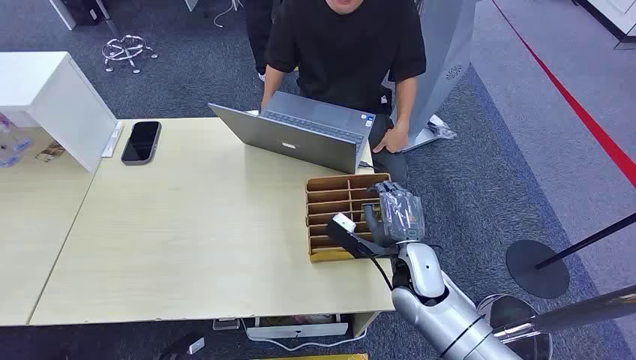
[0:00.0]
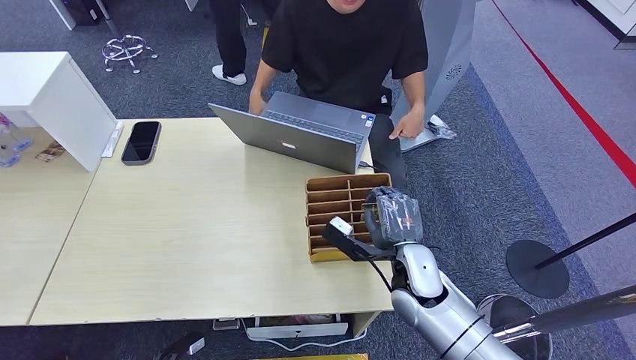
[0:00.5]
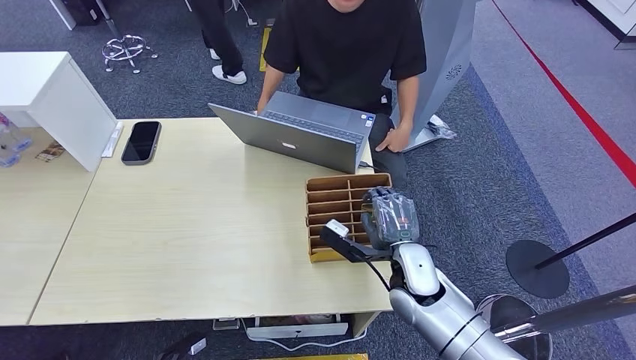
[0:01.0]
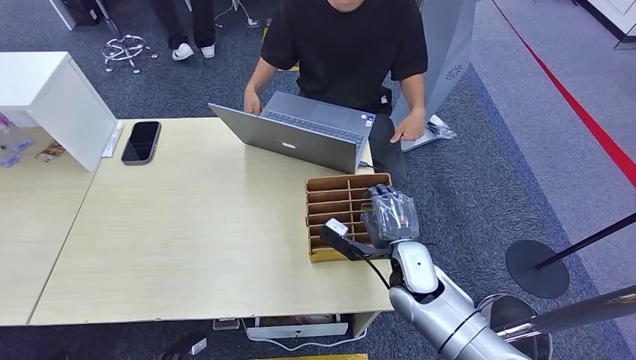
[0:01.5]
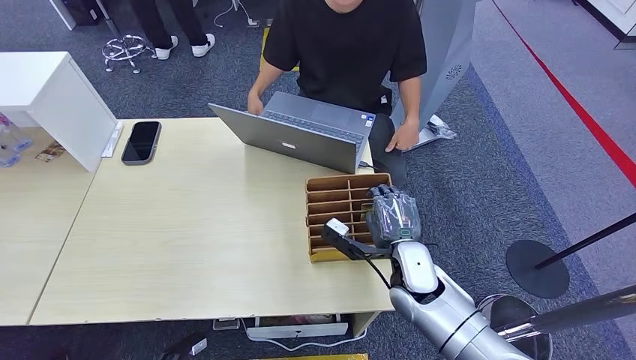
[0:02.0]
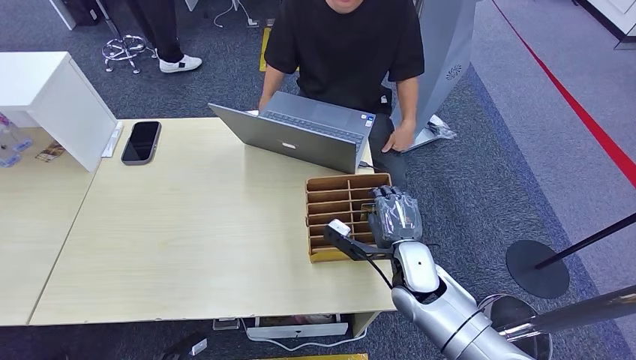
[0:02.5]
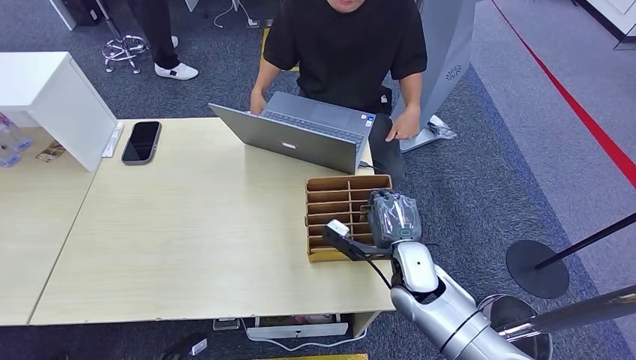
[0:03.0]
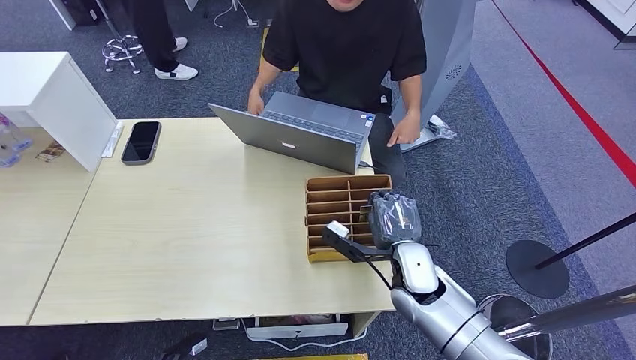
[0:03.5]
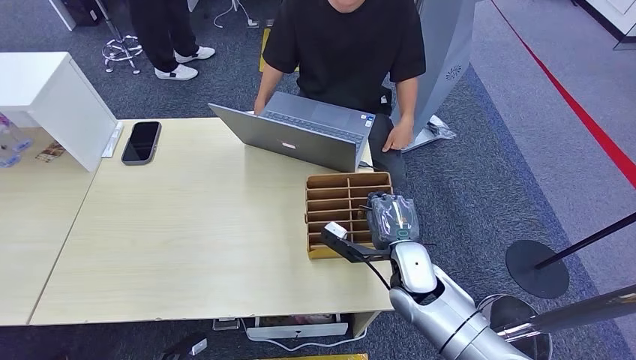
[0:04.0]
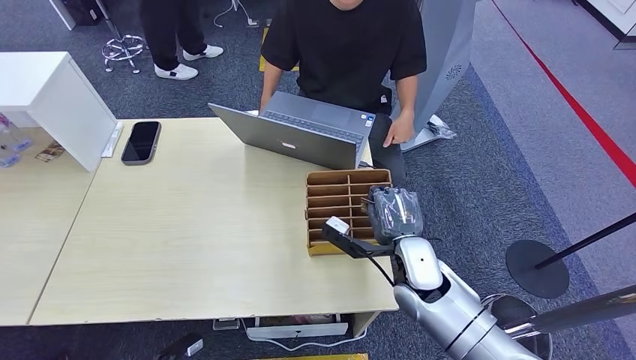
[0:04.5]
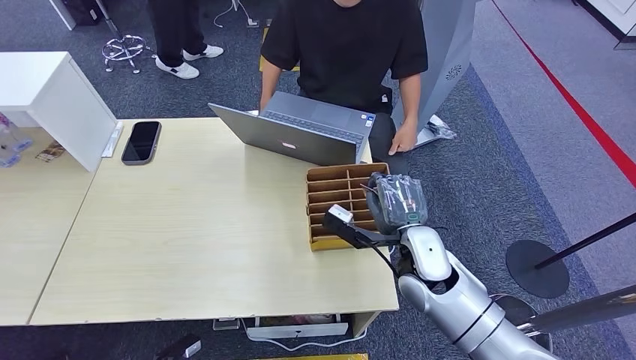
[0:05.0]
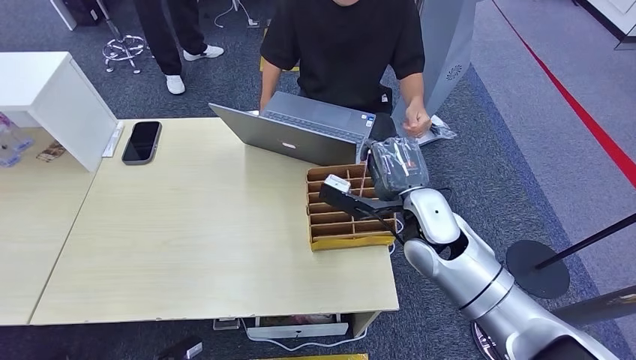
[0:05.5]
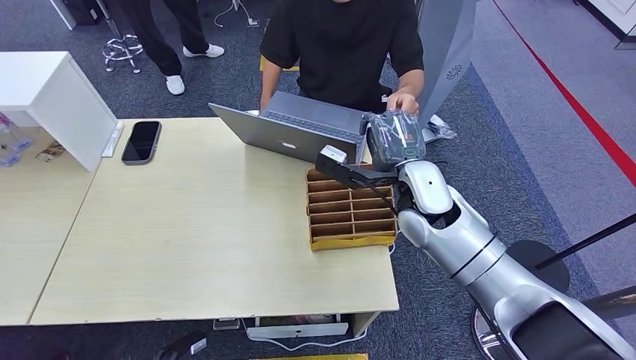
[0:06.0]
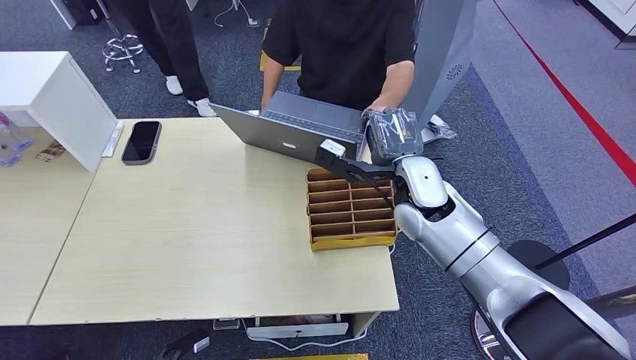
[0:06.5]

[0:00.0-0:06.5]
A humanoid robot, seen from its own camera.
Step, 0:00.0 to 0:05.5: Pick up the key card from the card box.
Step, 0:06.0 to 0:06.5: Hand the key card to the target.
0:02.0 to 0:04.5: The hands make only small movements.
0:04.5 to 0:06.5: The right hand is displaced upward and forward by about 15 cm.

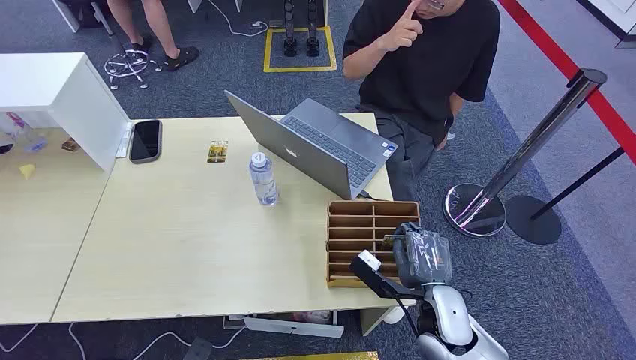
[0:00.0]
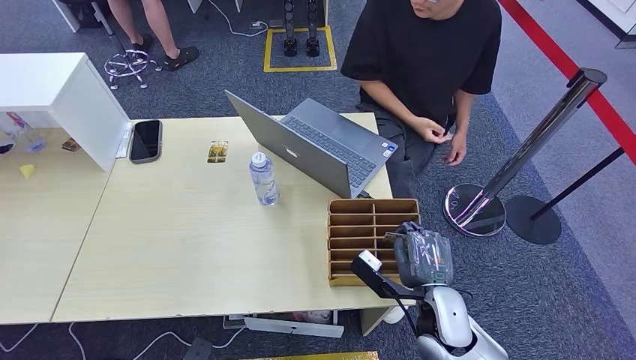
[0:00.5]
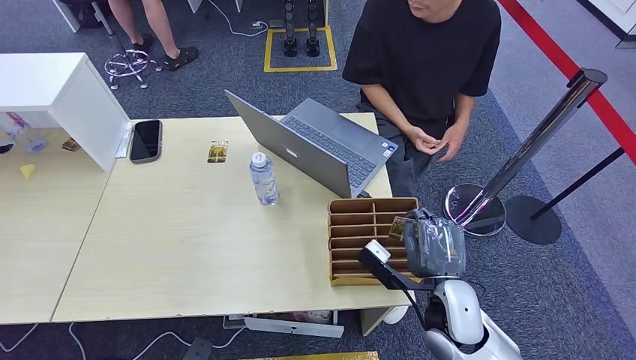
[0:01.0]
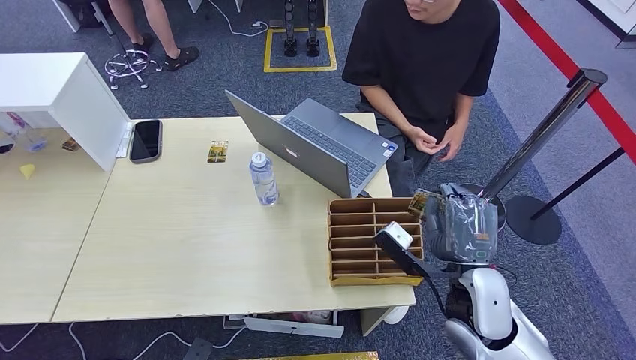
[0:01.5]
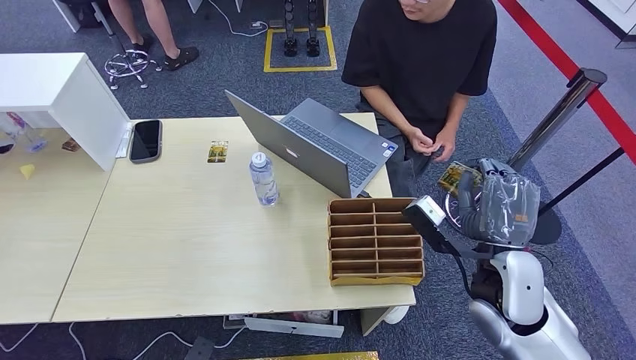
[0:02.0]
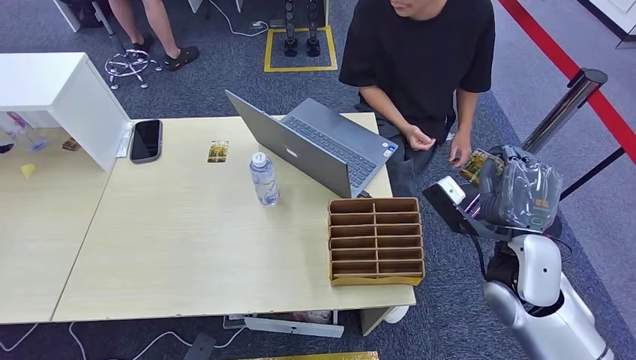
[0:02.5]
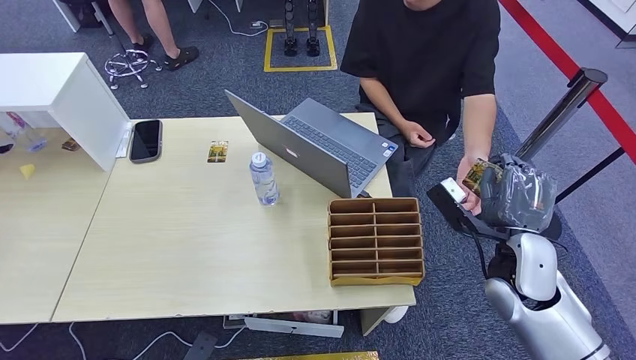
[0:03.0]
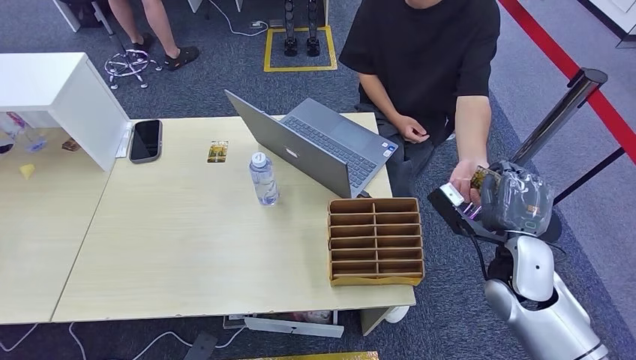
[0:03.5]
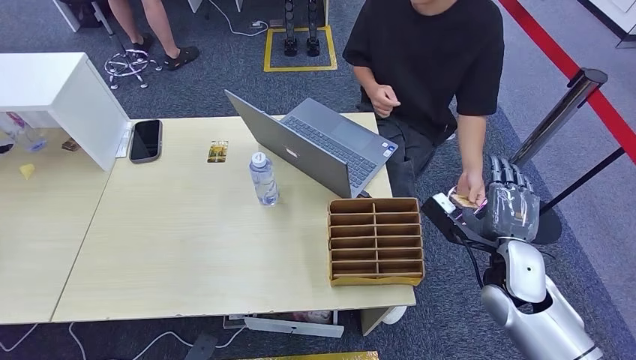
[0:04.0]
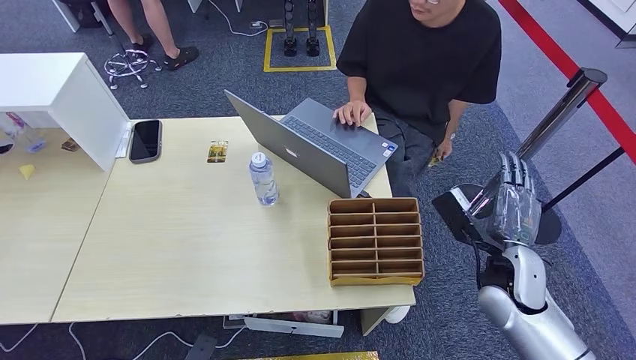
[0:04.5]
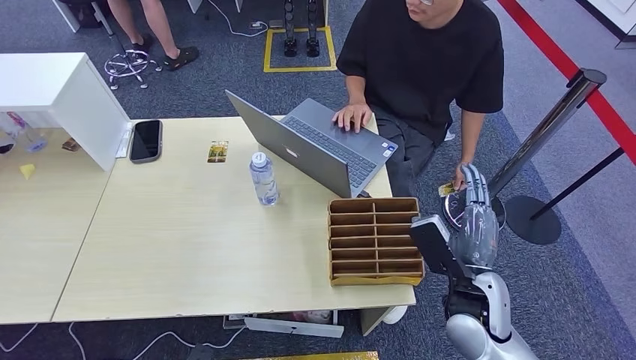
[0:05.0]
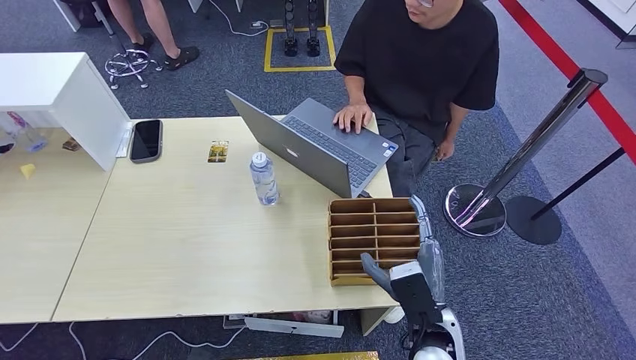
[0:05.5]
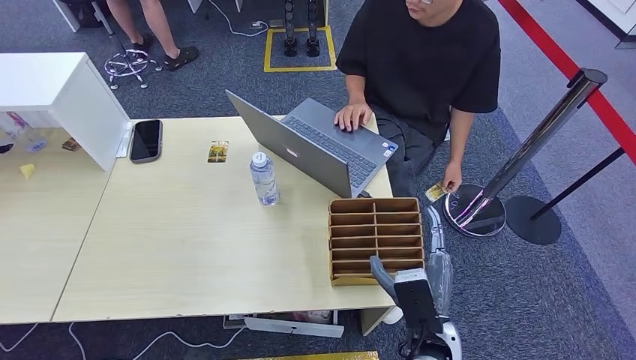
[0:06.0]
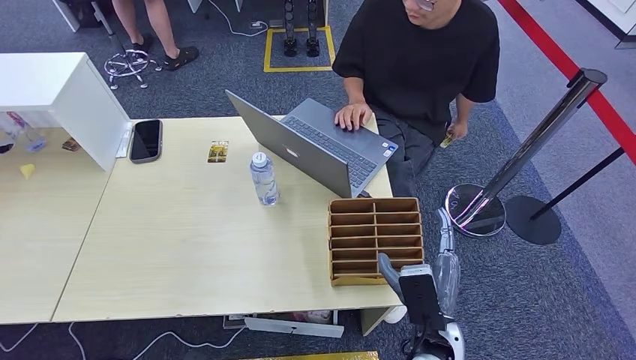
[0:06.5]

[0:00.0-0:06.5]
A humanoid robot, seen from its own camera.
Step, 0:00.0 to 0:01.5: Pick up the key card from the card box.
Step, 0:02.0 to 0:06.5: Hand the key card to the target.
0:02.0 to 0:04.5: The right hand shifts approximately 5 cm downward.
0:04.5 to 0:06.5: The right hand travels to the left and backward by some 15 cm.
